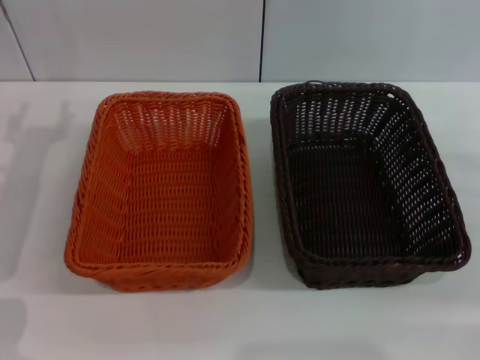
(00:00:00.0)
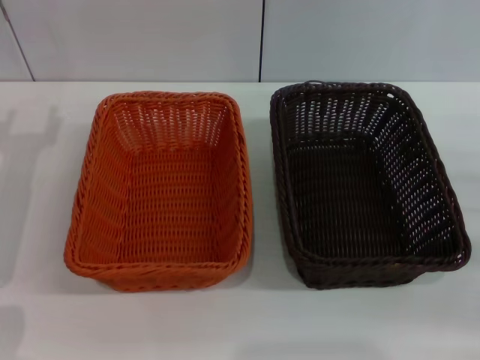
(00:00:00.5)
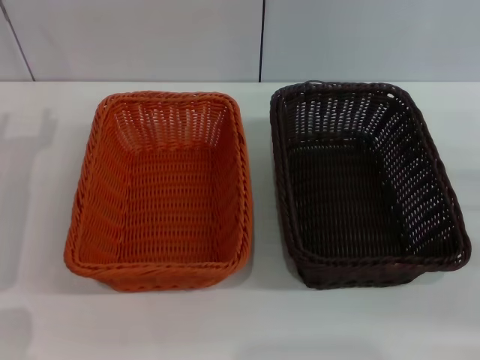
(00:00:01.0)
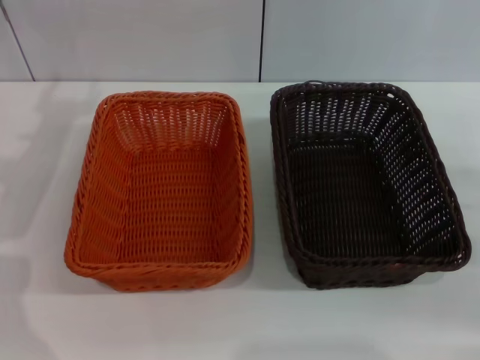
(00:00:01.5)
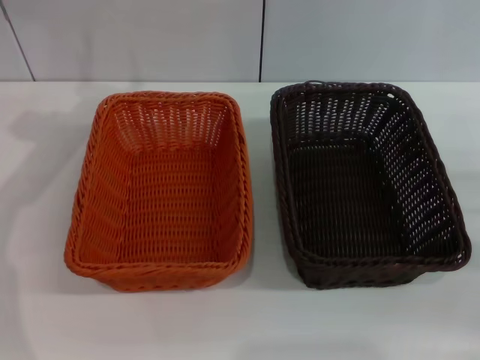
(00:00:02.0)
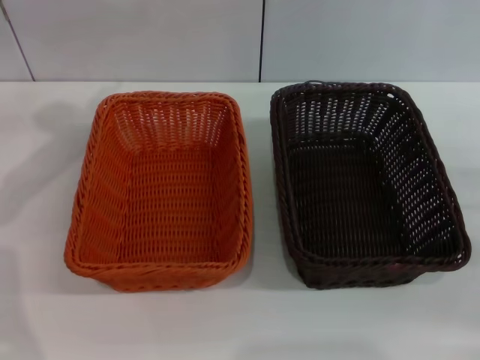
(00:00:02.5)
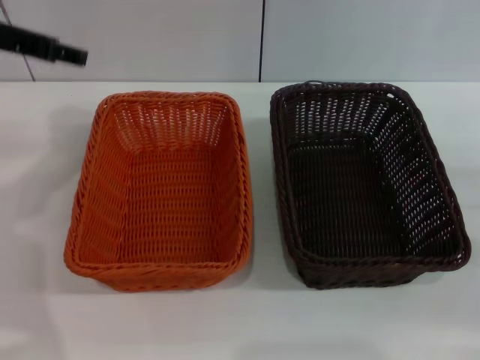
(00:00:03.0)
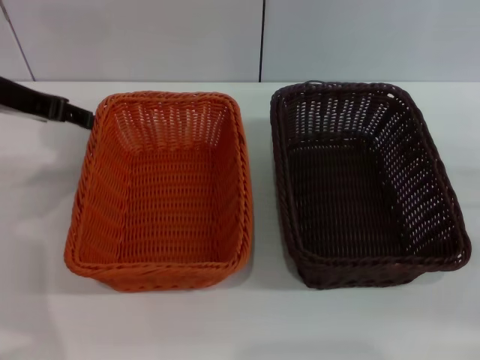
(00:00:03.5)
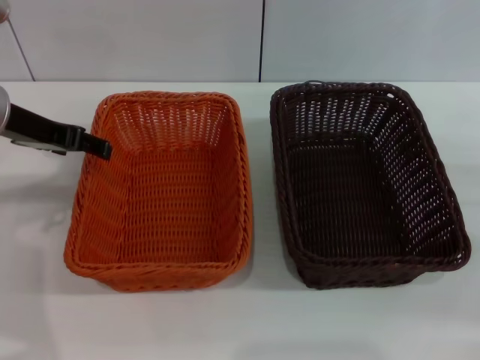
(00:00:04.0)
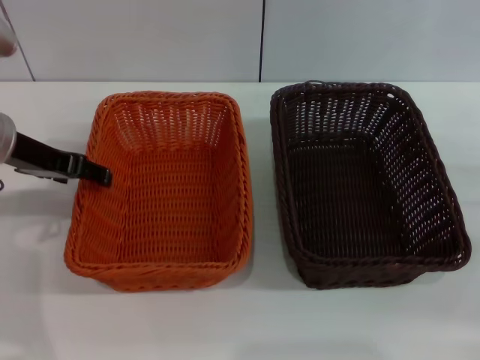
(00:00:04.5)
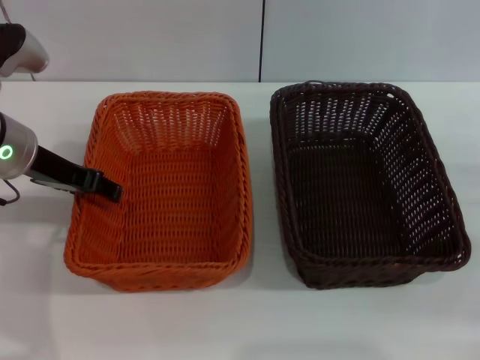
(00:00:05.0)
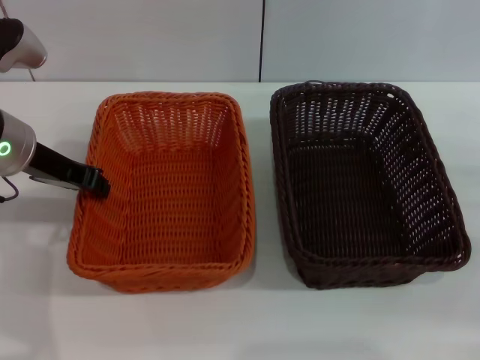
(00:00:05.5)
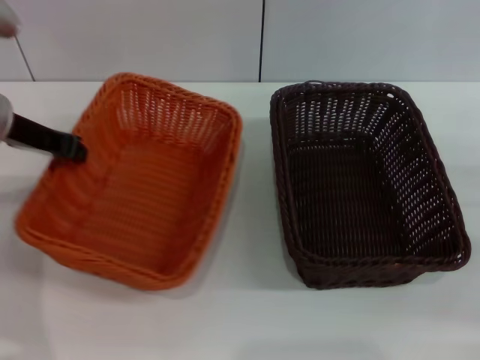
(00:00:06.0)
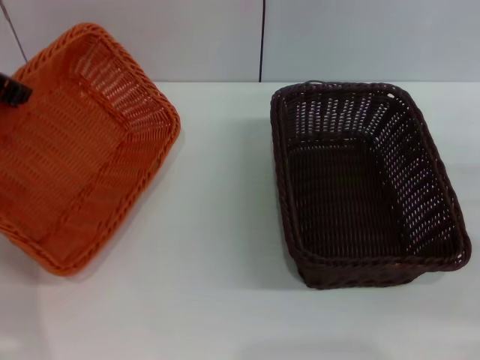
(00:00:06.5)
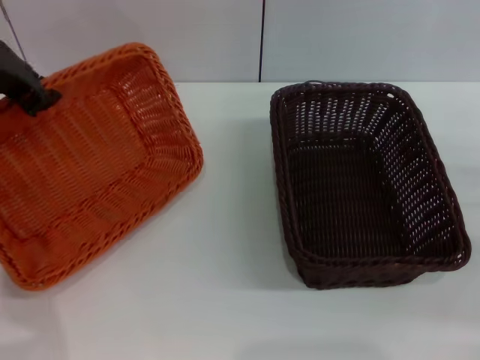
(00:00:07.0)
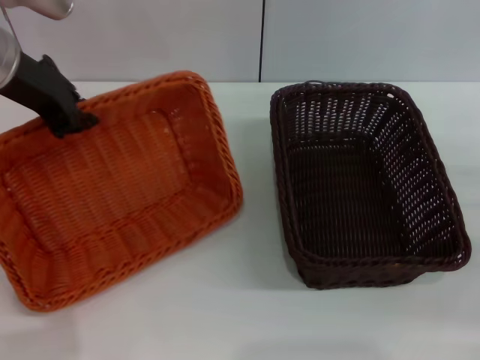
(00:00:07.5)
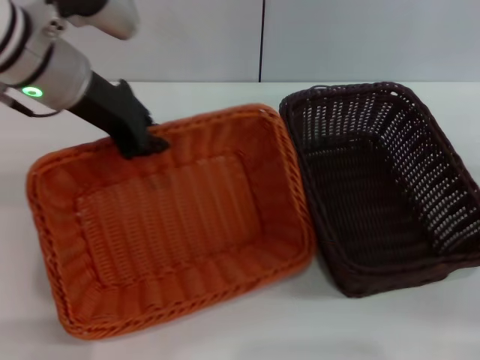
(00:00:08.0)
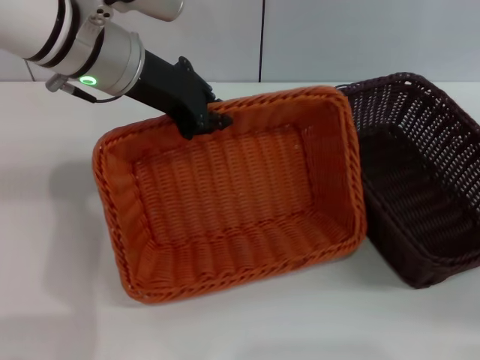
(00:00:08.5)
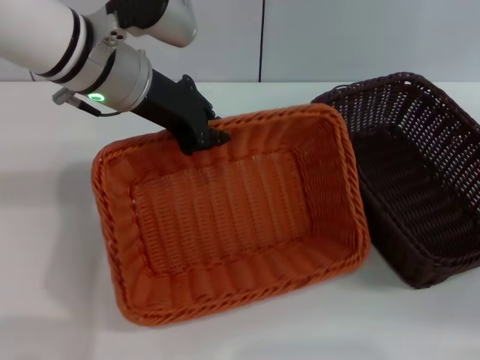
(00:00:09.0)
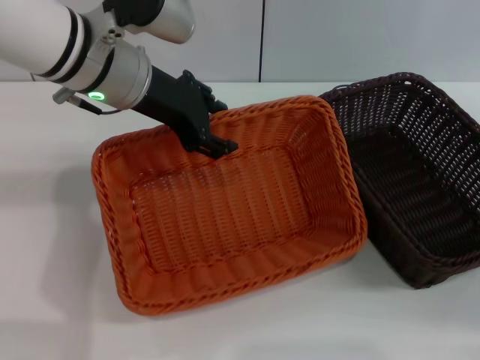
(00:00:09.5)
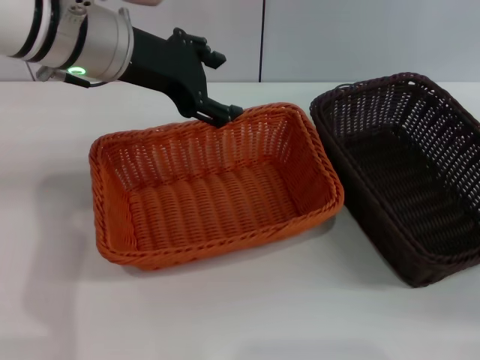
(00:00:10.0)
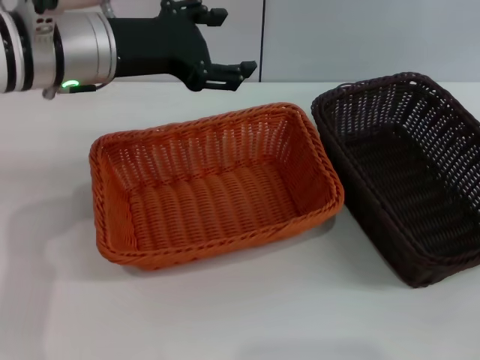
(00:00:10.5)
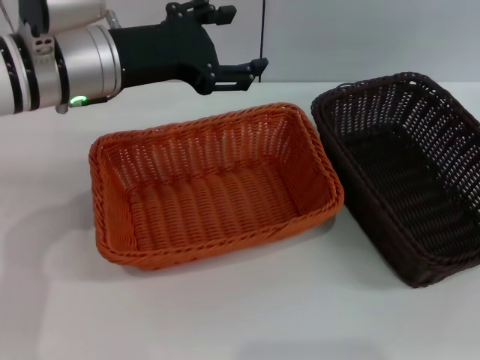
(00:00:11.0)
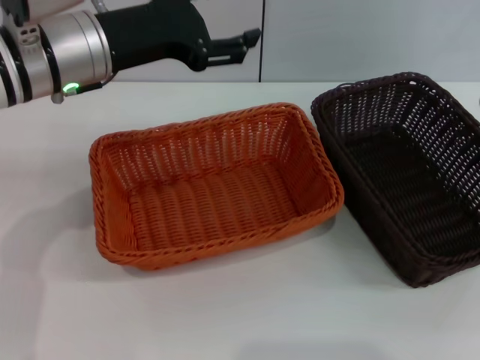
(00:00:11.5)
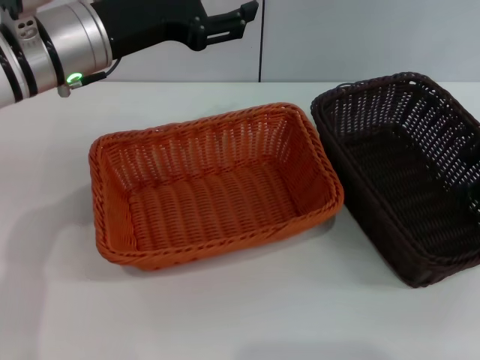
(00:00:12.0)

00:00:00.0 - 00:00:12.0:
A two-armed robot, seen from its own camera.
Step, 00:00:00.0 - 00:00:06.0: Pick up the light basket with the left gripper.
Step, 00:00:06.5 - 00:00:09.5: Place the light basket in the center of view with the left gripper.
00:00:02.0 - 00:00:04.0: The left gripper moves some 5 cm.
00:00:04.0 - 00:00:06.0: The left gripper closes up.
00:00:06.0 - 00:00:08.0: The left gripper moves to the right, some 5 cm.
00:00:08.0 - 00:00:10.0: The left gripper opens.
00:00:10.0 - 00:00:12.0: The right gripper moves upward, forward and to the left, approximately 15 cm.

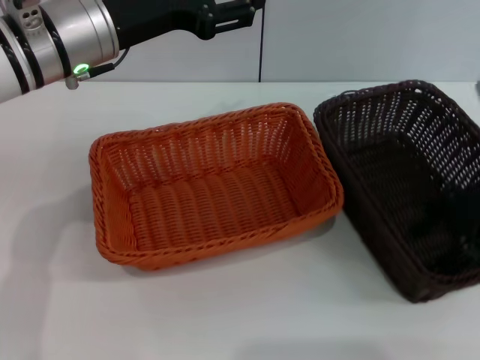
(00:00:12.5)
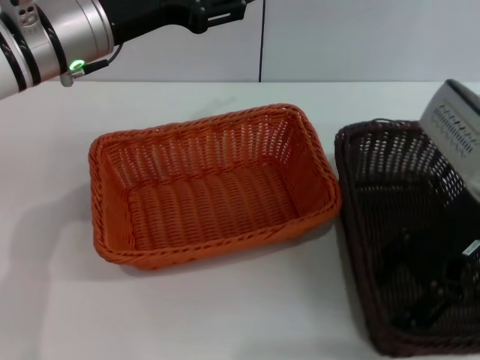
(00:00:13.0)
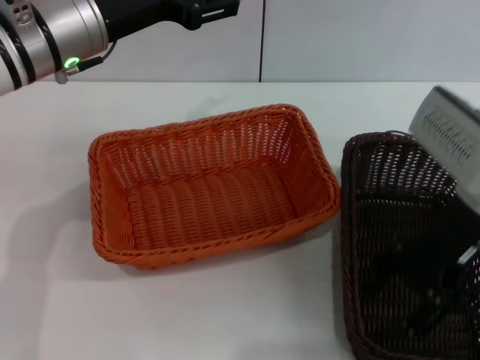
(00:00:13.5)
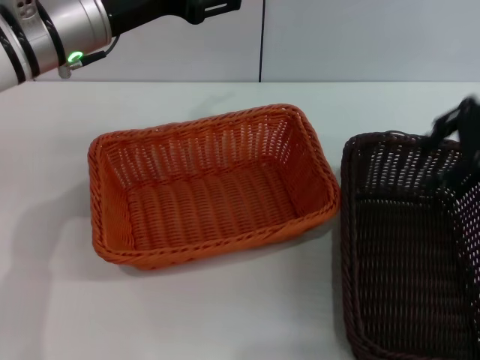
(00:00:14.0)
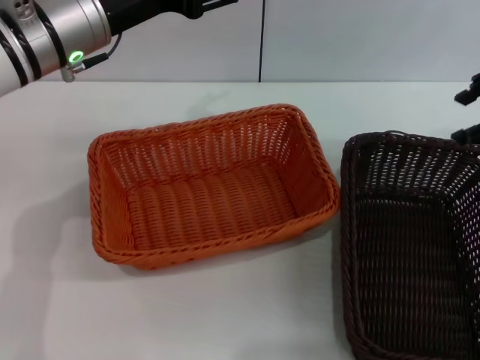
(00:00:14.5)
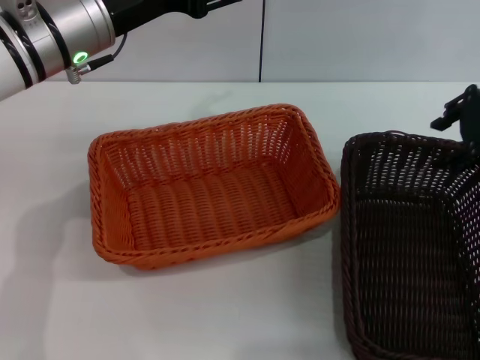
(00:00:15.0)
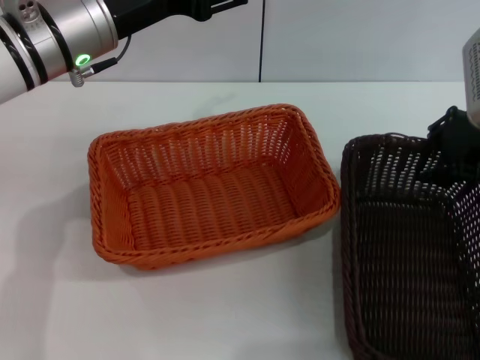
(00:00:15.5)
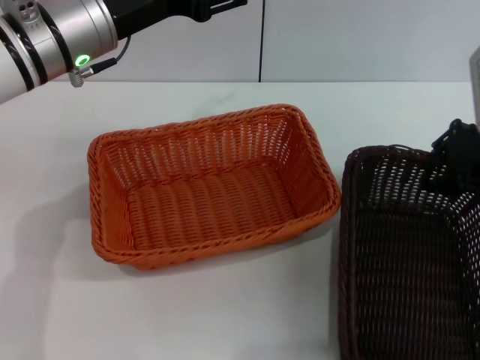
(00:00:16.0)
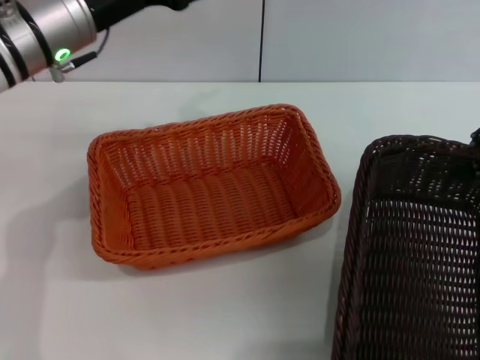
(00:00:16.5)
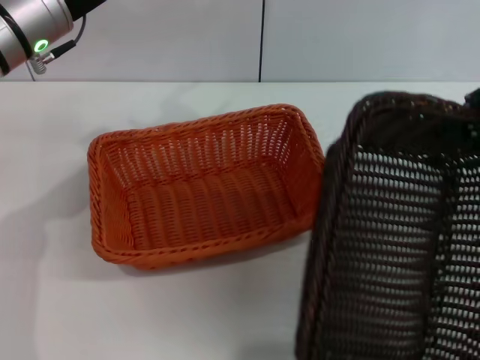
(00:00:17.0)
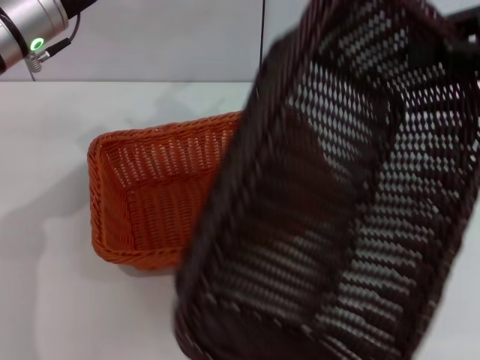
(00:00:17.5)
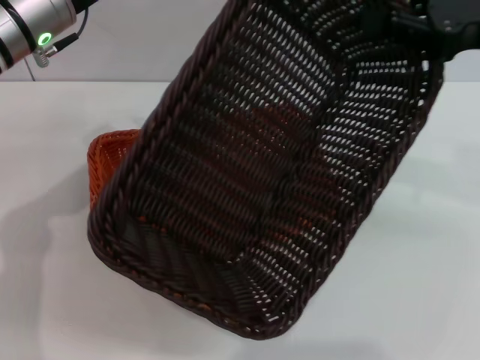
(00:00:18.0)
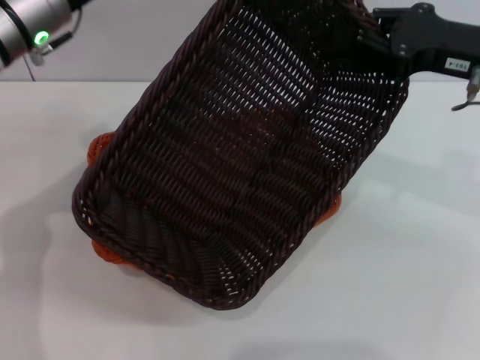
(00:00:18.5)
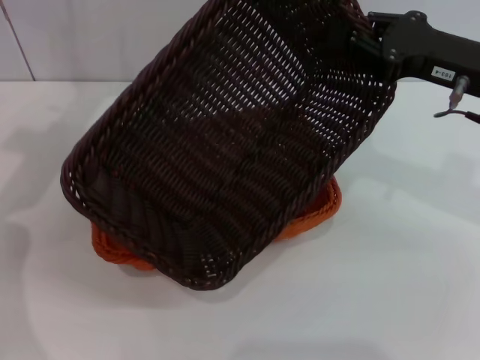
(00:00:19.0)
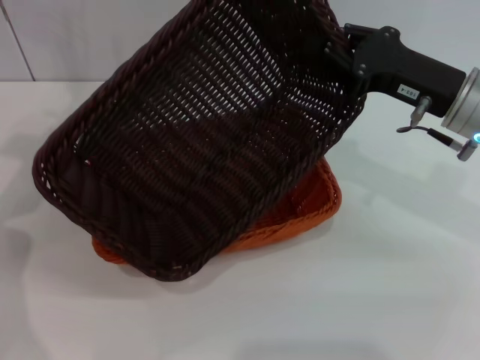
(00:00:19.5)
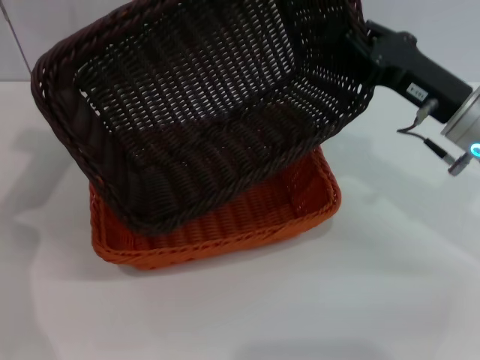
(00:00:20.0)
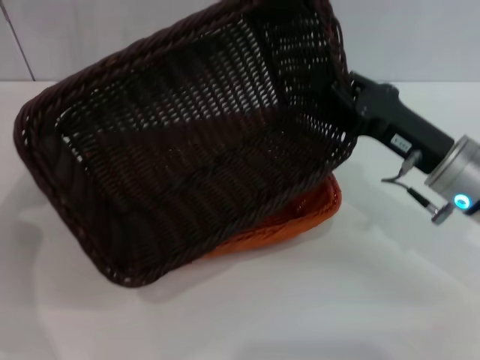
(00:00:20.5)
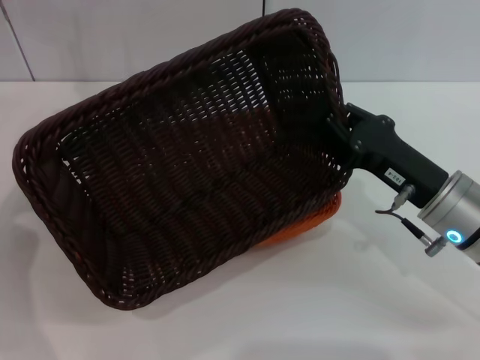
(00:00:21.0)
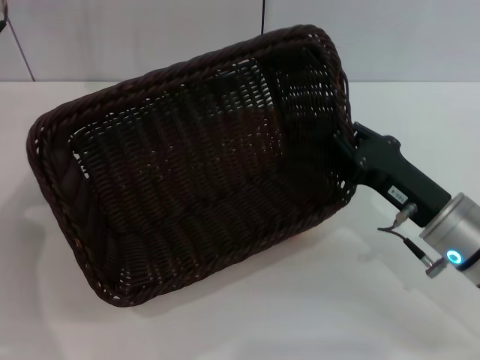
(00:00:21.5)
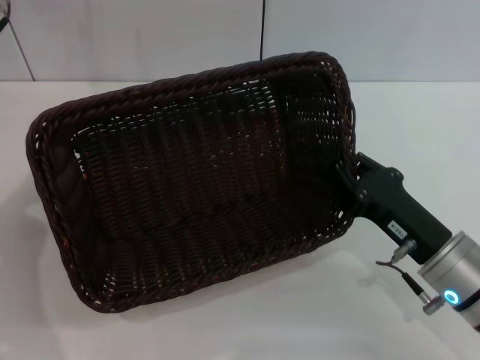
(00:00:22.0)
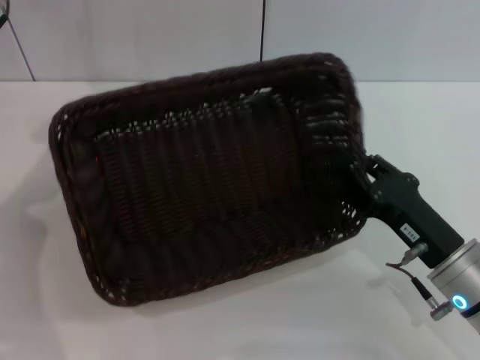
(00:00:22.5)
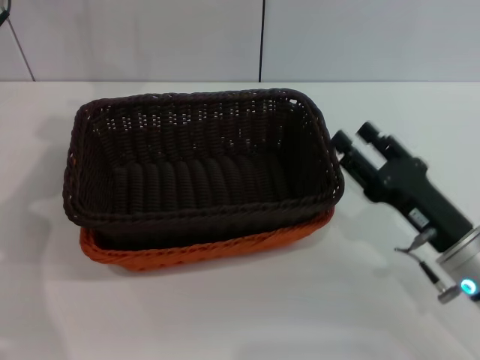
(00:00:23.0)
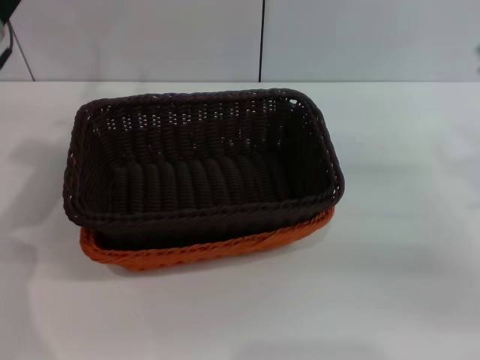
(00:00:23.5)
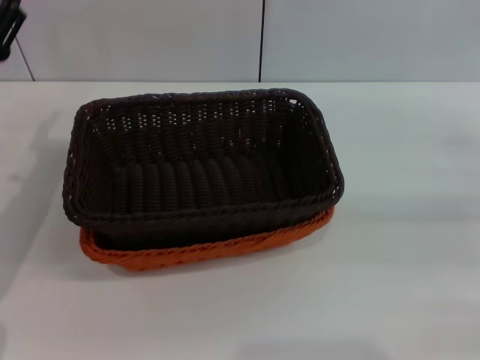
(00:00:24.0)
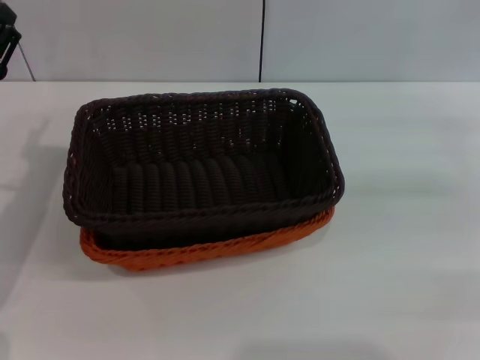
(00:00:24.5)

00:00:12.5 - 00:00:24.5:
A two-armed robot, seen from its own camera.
Step, 00:00:12.5 - 00:00:16.5: Pick up the dark basket with the right gripper.
Step, 00:00:17.0 - 00:00:22.5: Place the dark basket on the light basket with the right gripper.
00:00:12.5 - 00:00:14.5: The right gripper travels upward and forward by roughly 10 cm.
00:00:14.5 - 00:00:16.5: The right gripper moves some 5 cm, and closes.
00:00:16.5 - 00:00:18.5: The right gripper travels to the left by some 10 cm.
00:00:18.5 - 00:00:20.5: The left gripper goes roughly 5 cm to the left; the right gripper goes about 10 cm downward.
00:00:20.5 - 00:00:22.5: The right gripper shifts roughly 10 cm backward and downward.
00:00:22.5 - 00:00:24.5: The right gripper travels to the right, forward and upward by roughly 25 cm, and opens up, while the left gripper heads backward and downward, covering roughly 15 cm.
